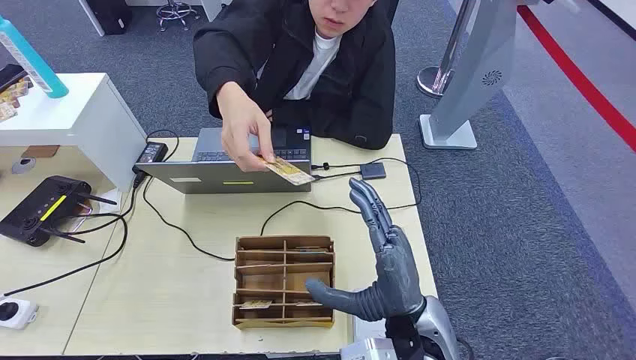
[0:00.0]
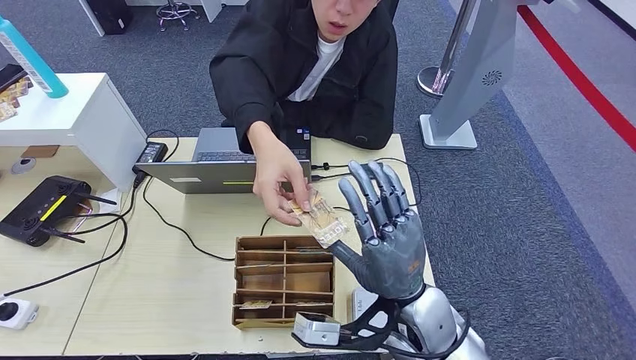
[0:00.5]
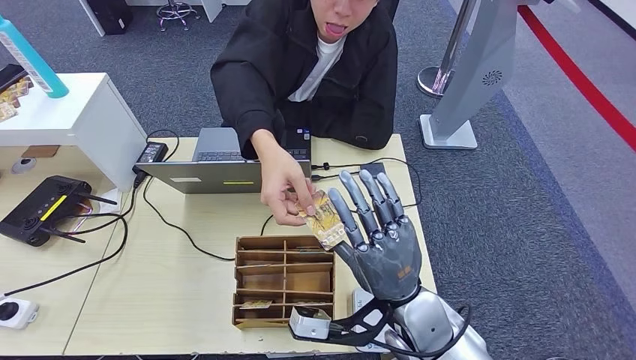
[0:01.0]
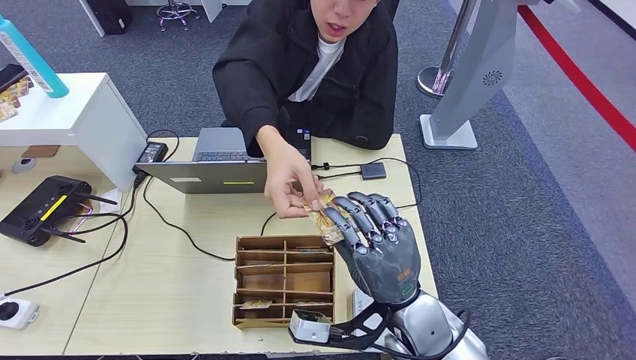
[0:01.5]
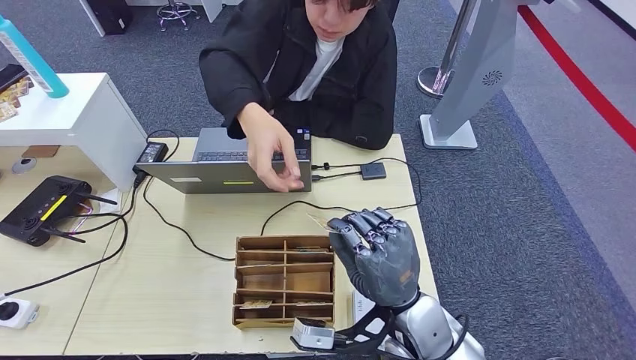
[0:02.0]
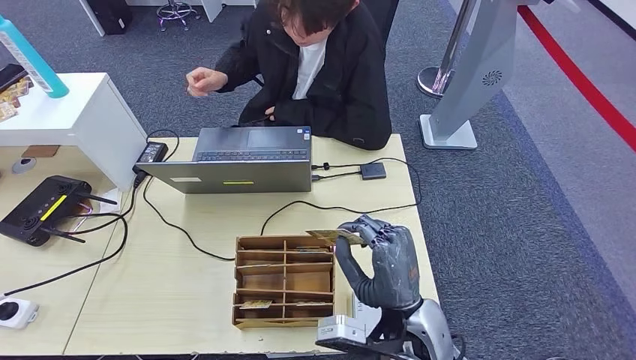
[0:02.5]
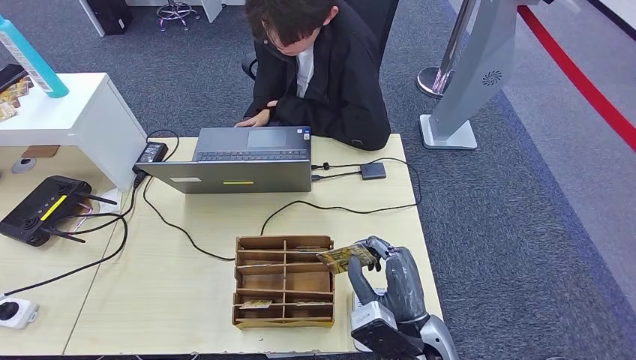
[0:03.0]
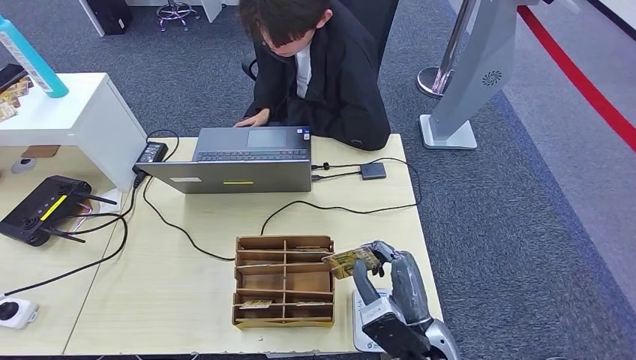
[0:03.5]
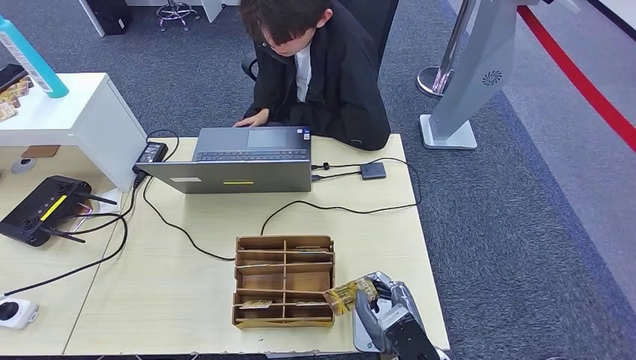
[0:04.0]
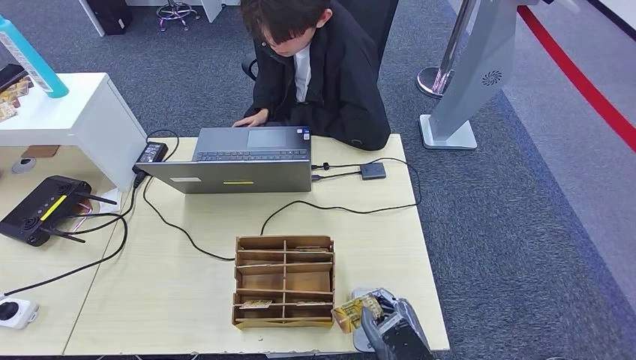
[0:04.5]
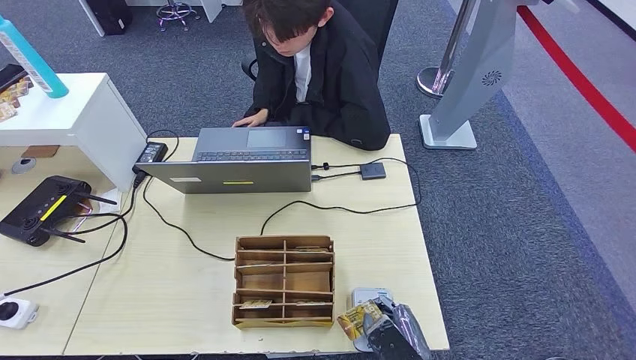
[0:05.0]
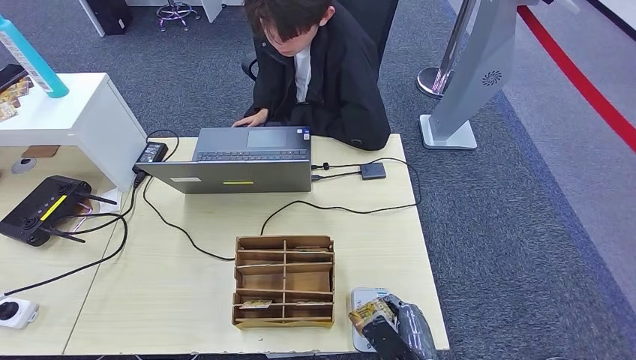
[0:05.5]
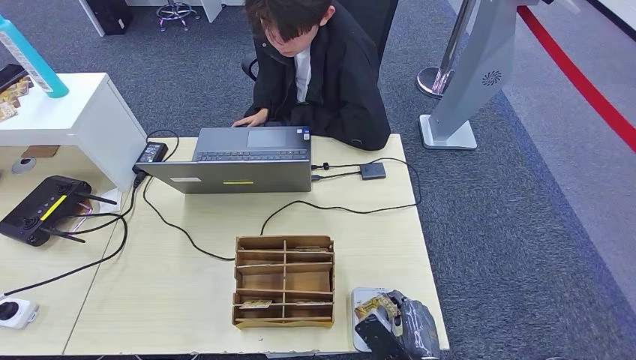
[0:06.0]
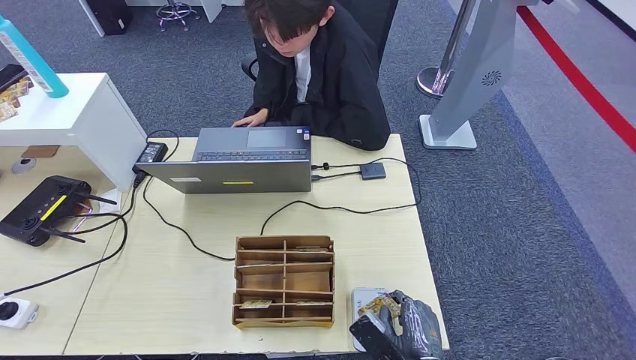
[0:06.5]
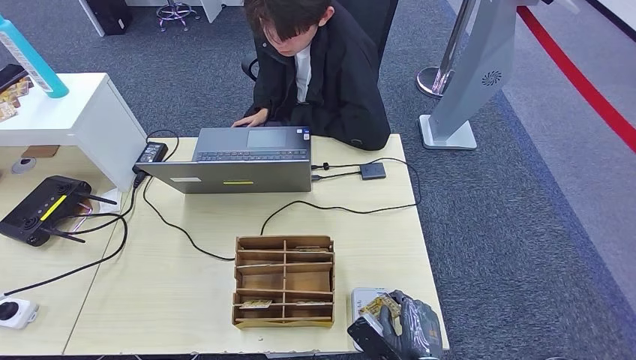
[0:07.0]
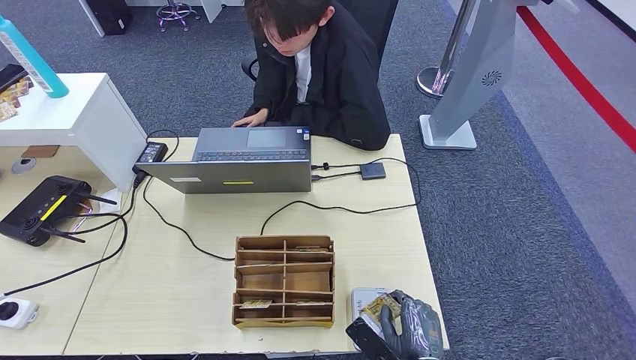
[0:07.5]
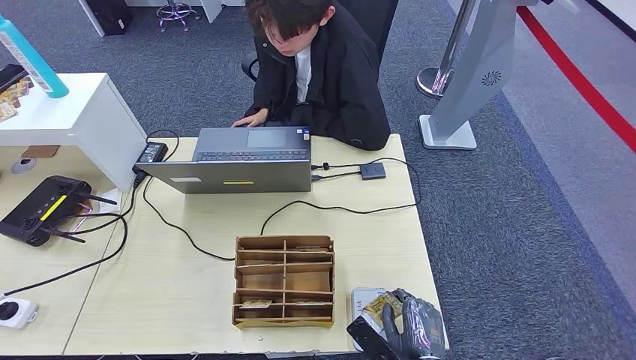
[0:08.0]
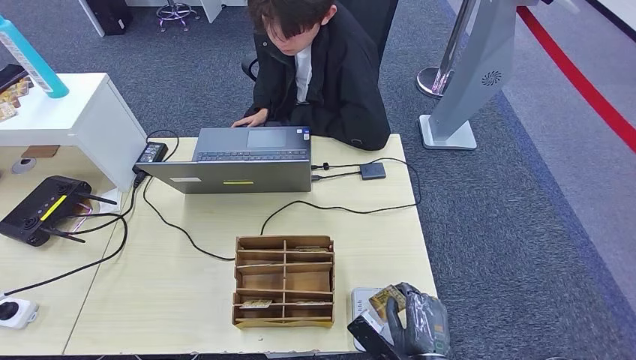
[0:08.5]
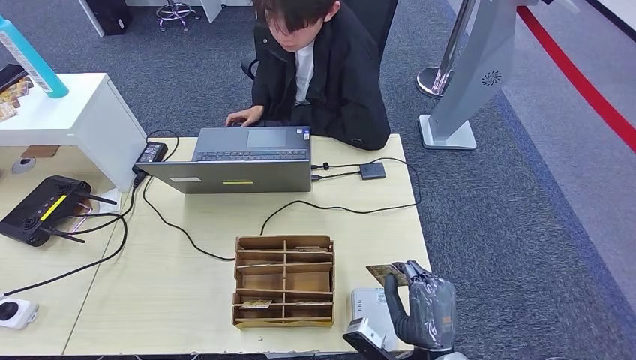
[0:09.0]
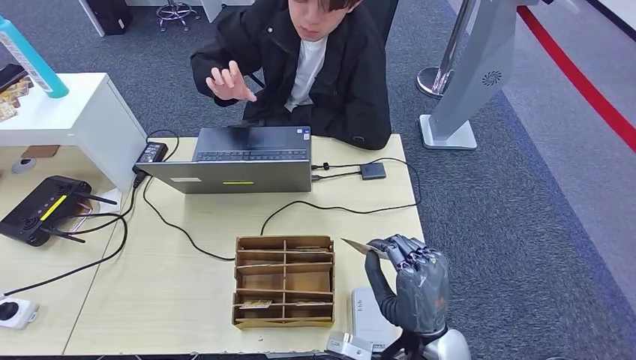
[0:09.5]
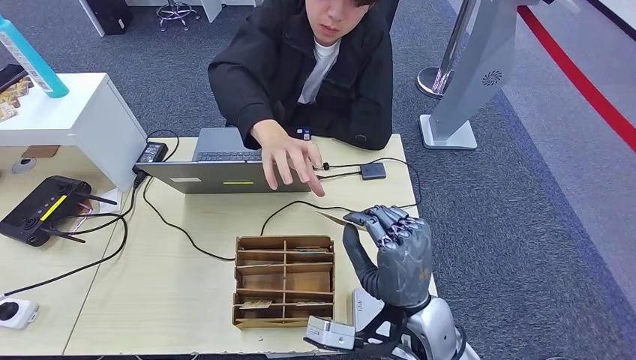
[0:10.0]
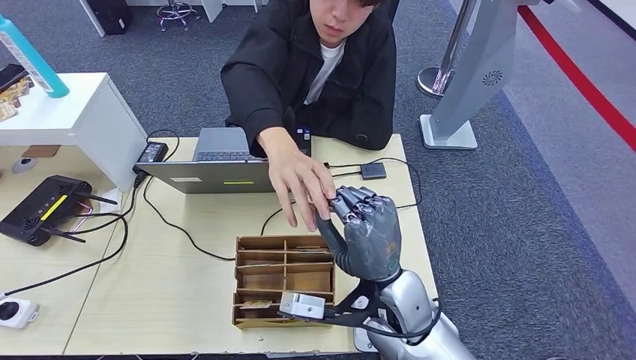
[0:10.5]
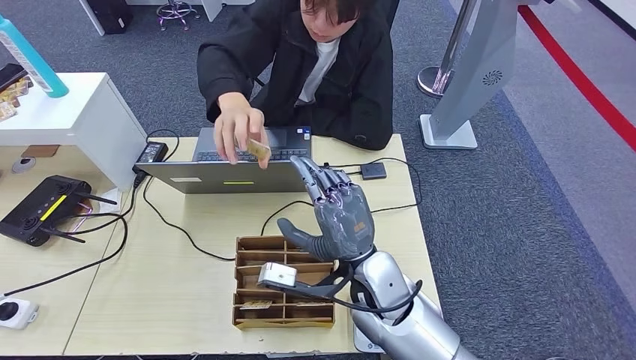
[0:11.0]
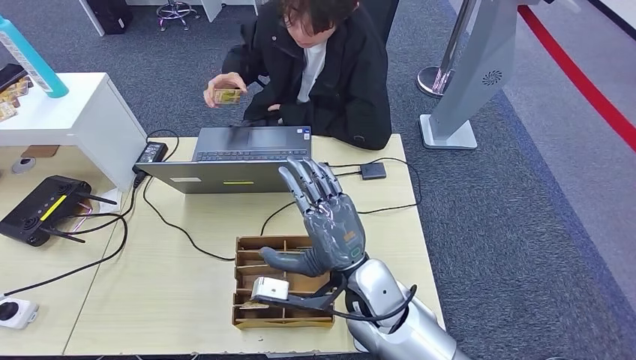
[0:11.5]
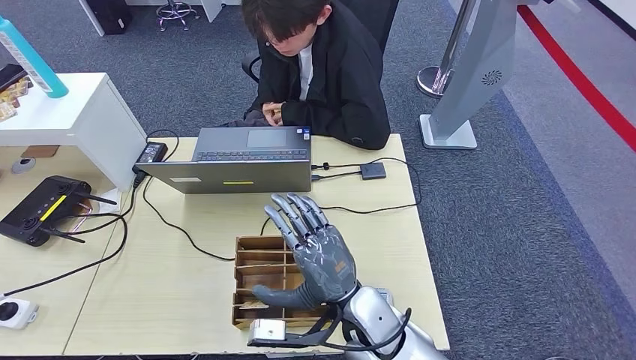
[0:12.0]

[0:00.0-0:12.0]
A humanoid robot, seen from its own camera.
Step, 0:00.0 to 0:02.5: Take the ID card from the person's hand.
Step, 0:03.0 to 0:05.5: Place the ID card on the card reader.
Step, 0:06.0 to 0:11.0: Hand the ID card to the person.
0:02.0 to 0:04.0: The right hand heads downward and backward, covering some 10 cm.
0:04.0 to 0:06.0: The right hand ends up approximately 5 cm from where it was.
0:06.0 to 0:08.0: The hands stay close to where they were, moving slightly.
0:08.0 to 0:10.0: The right hand is displaced upward and forward by approximately 15 cm.
0:10.0 to 0:12.0: The right hand shifts some 5 cm to the left.

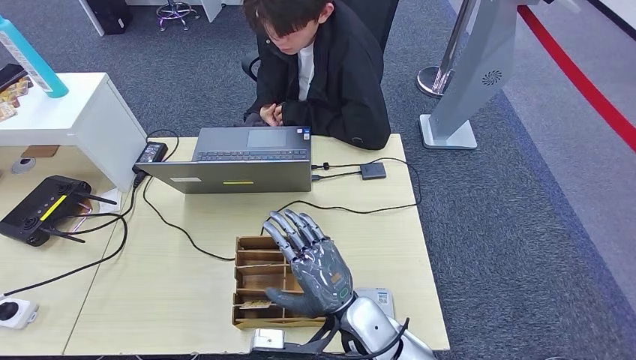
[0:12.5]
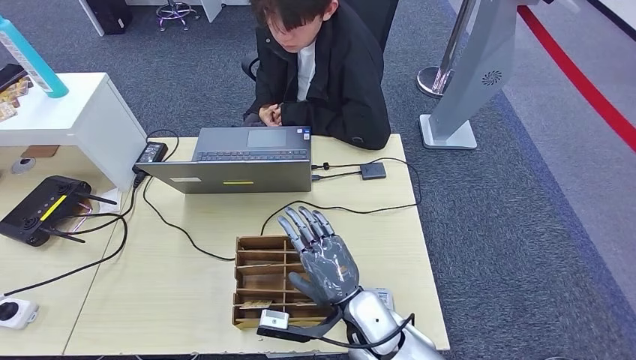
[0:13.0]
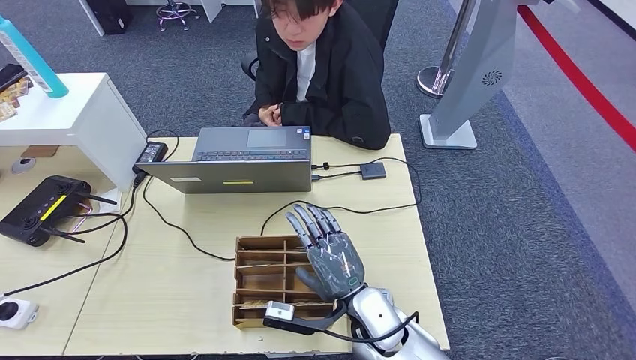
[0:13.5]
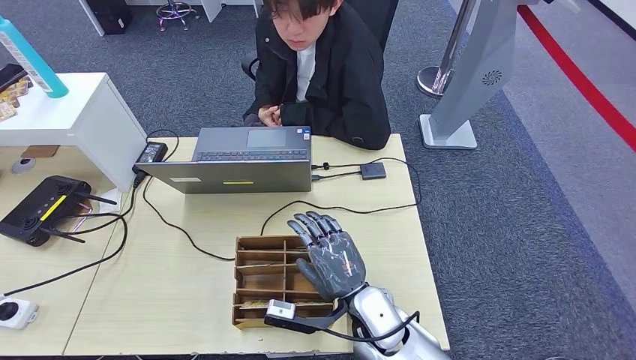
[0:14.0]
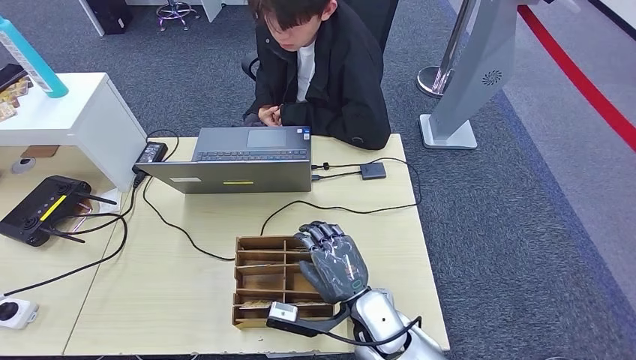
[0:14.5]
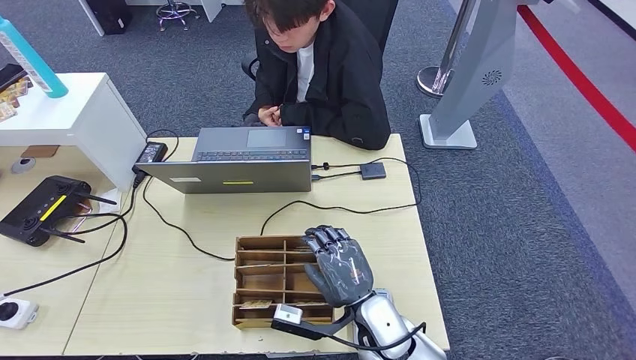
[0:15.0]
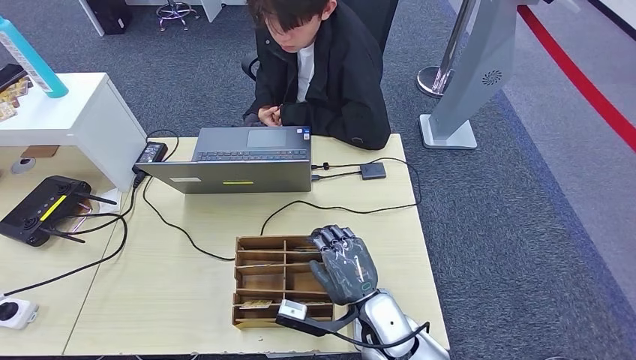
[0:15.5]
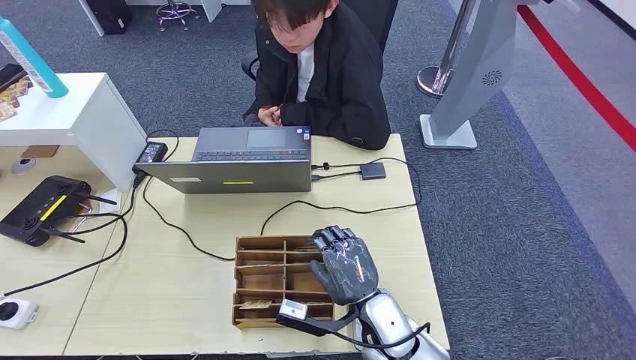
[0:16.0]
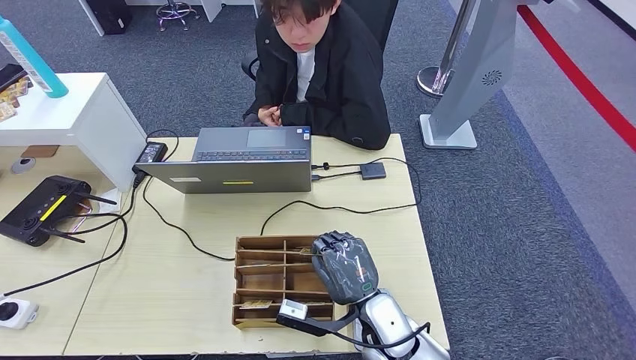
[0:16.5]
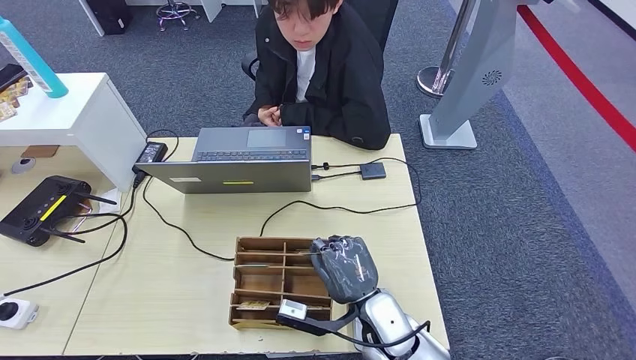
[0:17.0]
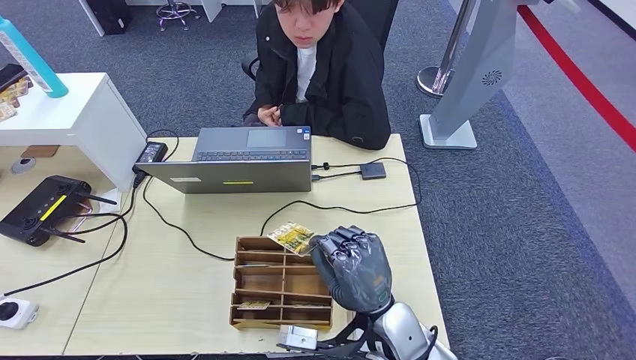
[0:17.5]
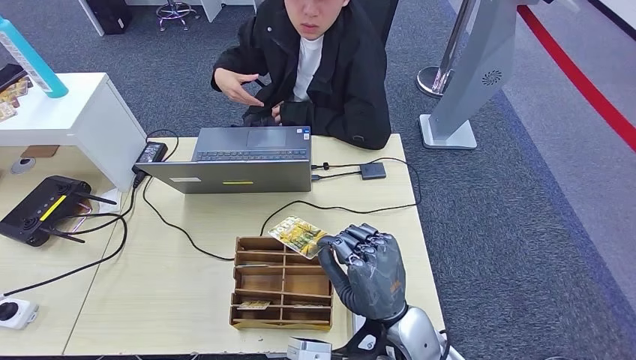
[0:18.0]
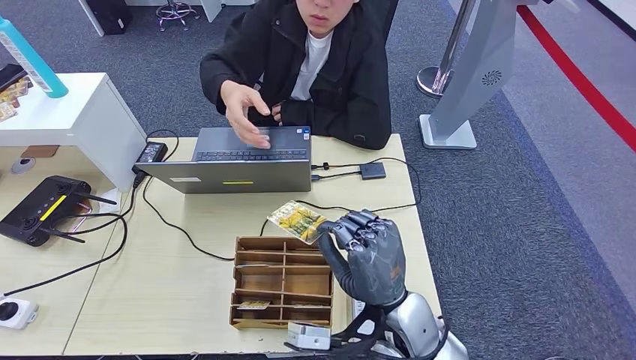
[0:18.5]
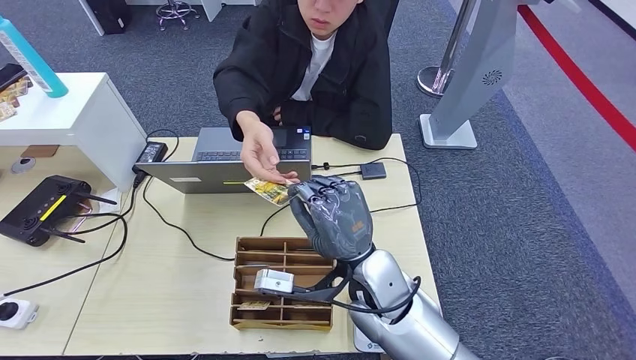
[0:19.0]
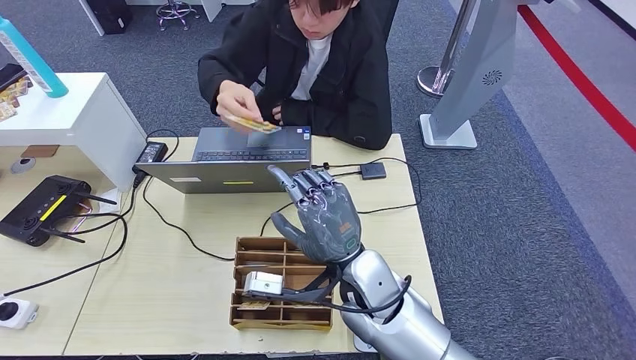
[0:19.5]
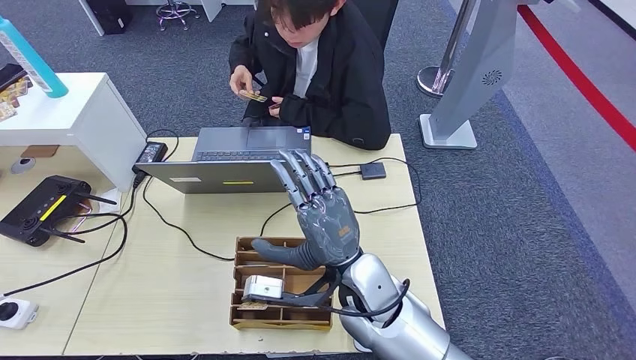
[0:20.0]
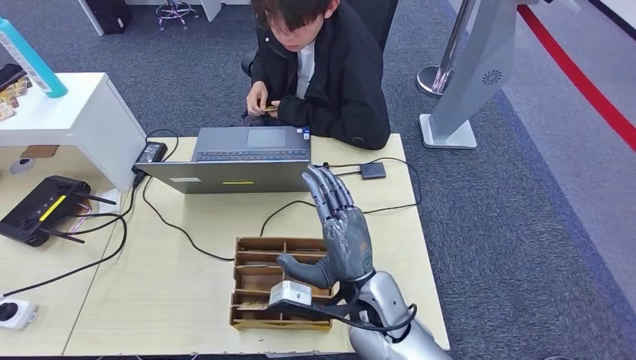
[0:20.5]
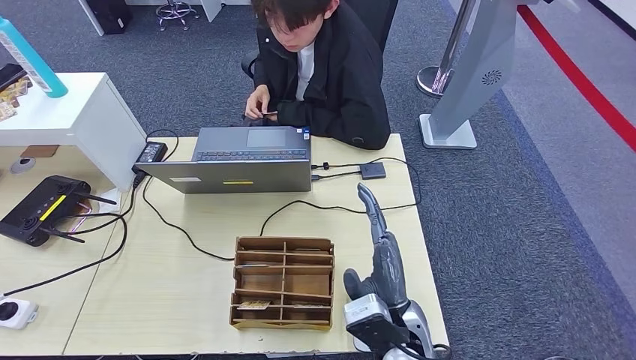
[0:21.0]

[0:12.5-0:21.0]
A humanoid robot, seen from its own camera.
Step, 0:12.5 to 0:18.0: Pick up the room key from the key card box.
Step, 0:18.5 to 0:21.0: Hand the room key to the person.
0:12.5 to 0:16.5: The hands stay close to where they were, moving slightly.
0:16.5 to 0:19.0: The right hand heads upward, covering some 10 cm.
0:19.0 to 0:21.0: The right hand is displaced backward by roughly 5 cm.
